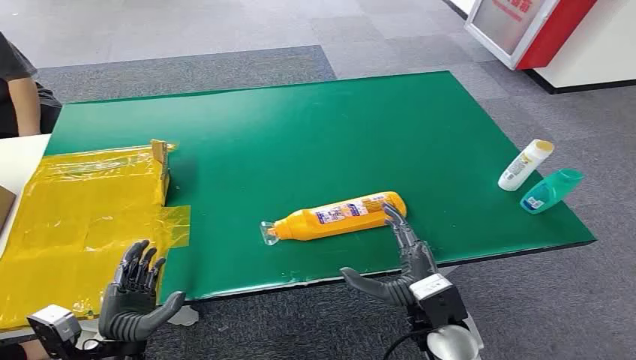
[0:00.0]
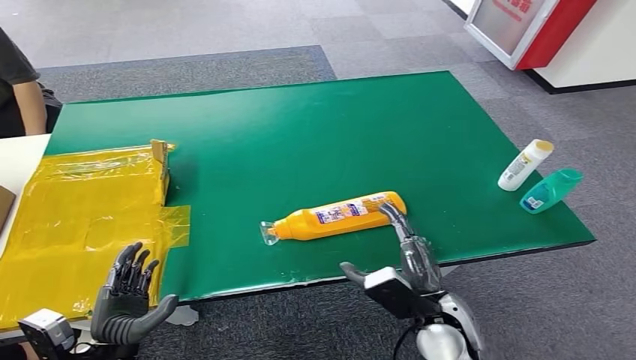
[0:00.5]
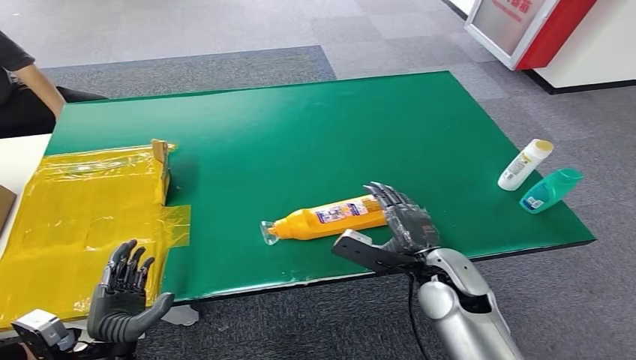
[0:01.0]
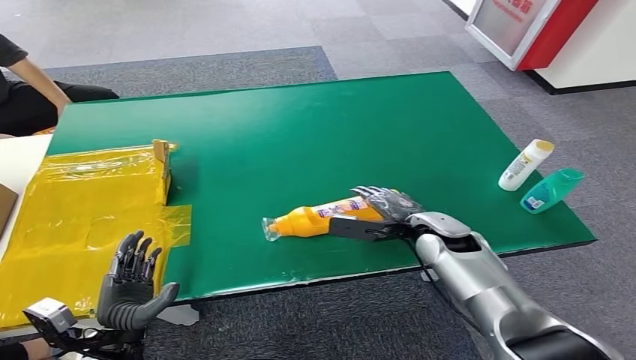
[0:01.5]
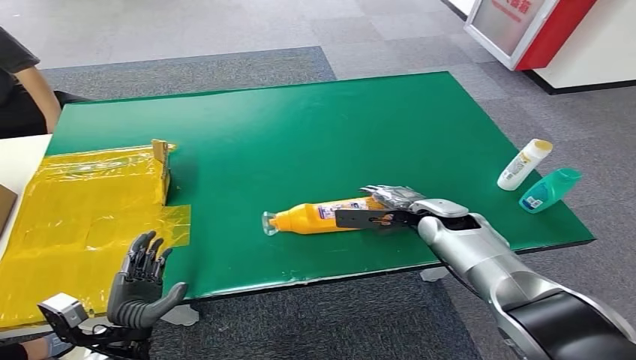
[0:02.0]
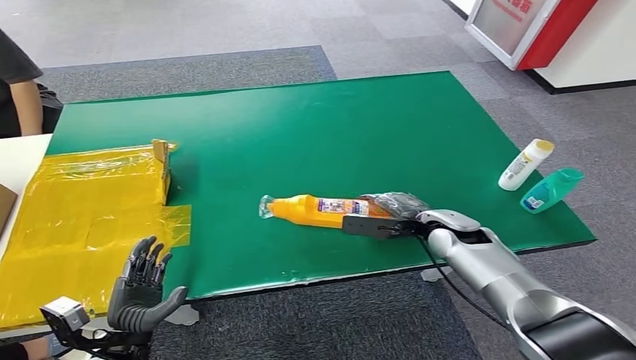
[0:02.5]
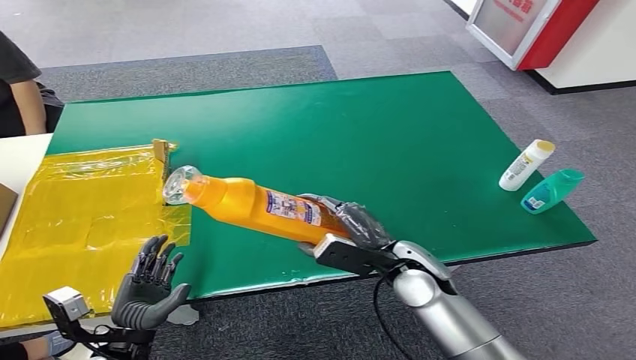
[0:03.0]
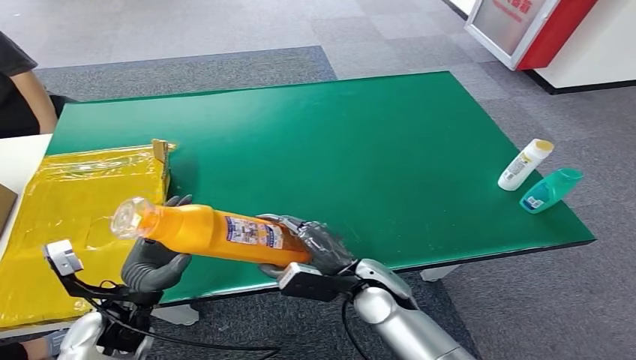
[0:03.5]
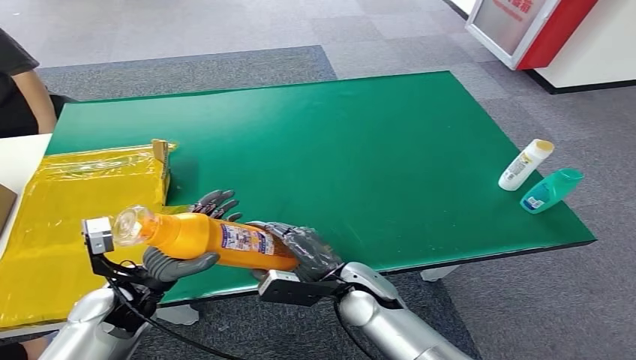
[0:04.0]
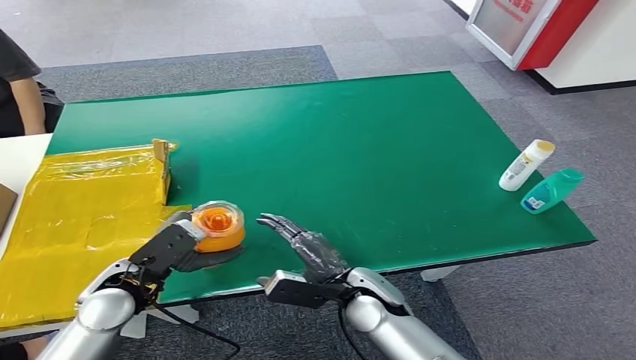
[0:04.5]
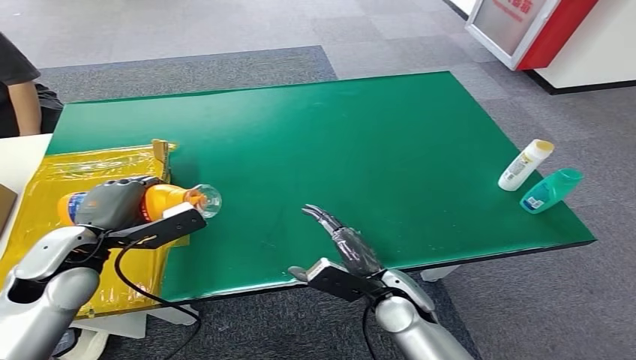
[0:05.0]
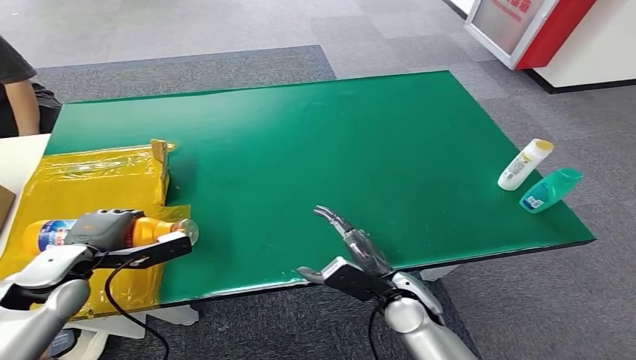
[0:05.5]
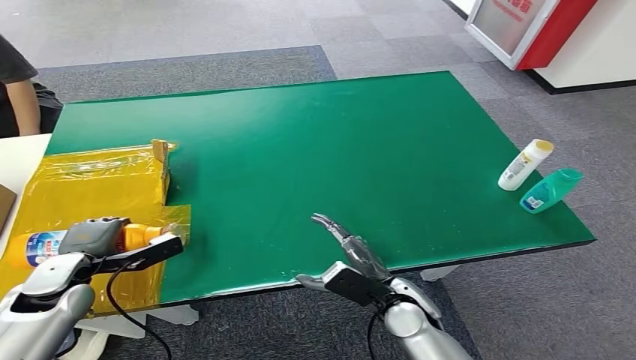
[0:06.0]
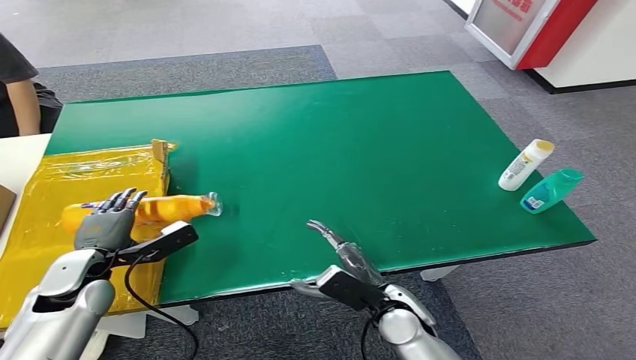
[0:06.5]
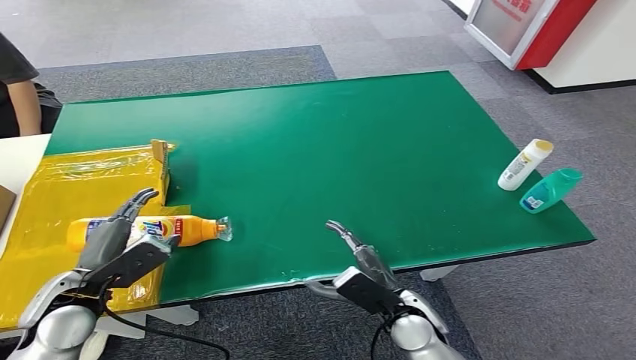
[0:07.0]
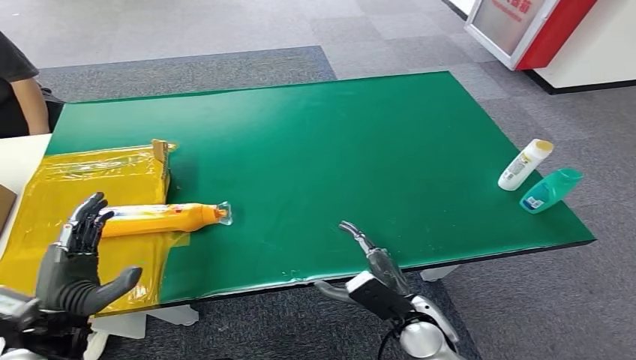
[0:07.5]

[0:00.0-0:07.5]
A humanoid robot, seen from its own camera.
Step, 0:00.0 to 0:03.0: Pick up the bottle from the table.
Step, 0:03.5 to 0:07.5: Turn the bottle to the front side.
0:04.0 to 0:05.5: The right hand shifts about 5 cm to the right; the left hand moves to the left, approximately 10 cm.
0:05.5 to 0:07.5: The left hand travels backward by approximately 10 cm.
